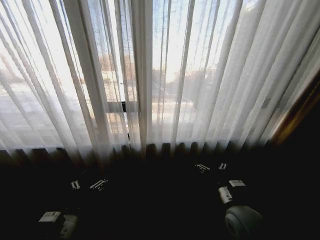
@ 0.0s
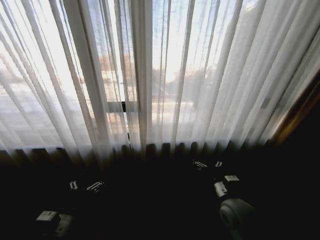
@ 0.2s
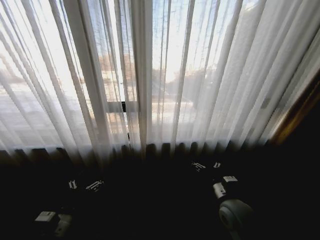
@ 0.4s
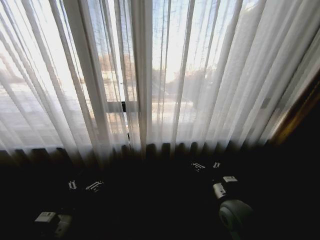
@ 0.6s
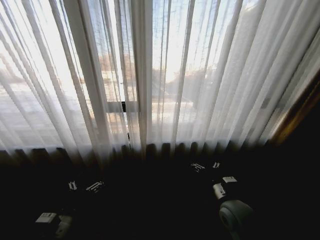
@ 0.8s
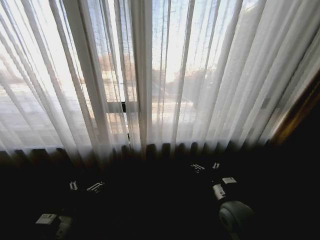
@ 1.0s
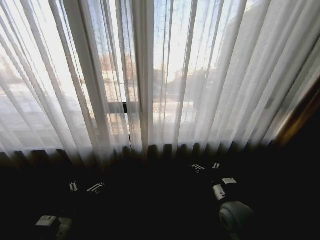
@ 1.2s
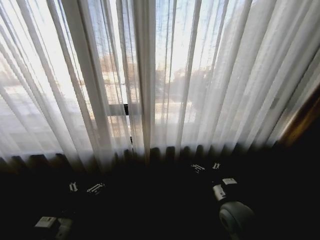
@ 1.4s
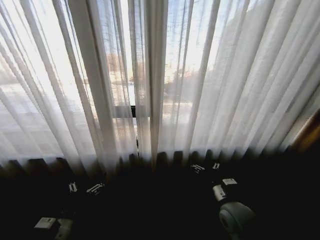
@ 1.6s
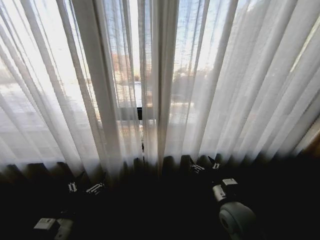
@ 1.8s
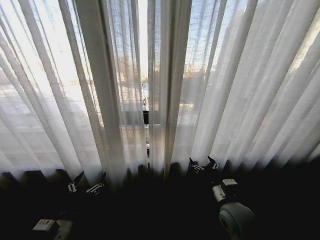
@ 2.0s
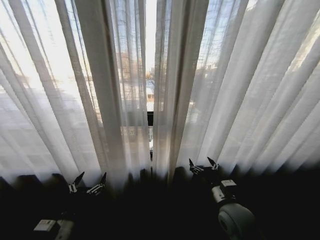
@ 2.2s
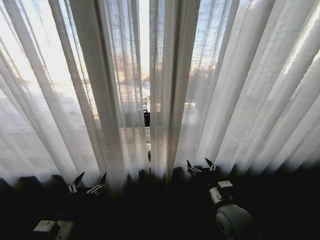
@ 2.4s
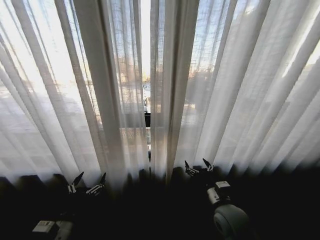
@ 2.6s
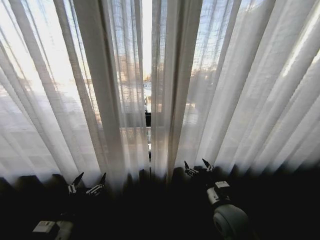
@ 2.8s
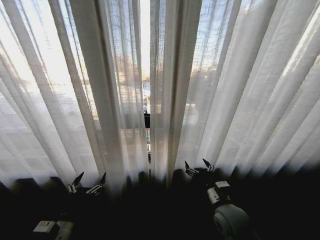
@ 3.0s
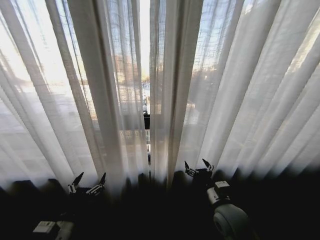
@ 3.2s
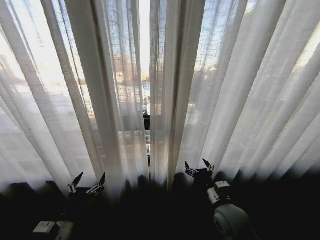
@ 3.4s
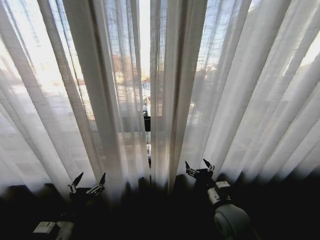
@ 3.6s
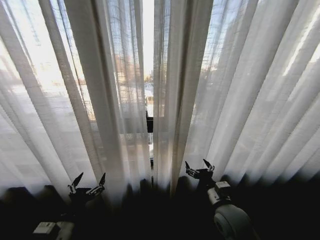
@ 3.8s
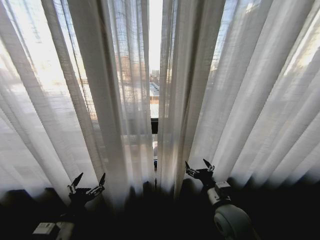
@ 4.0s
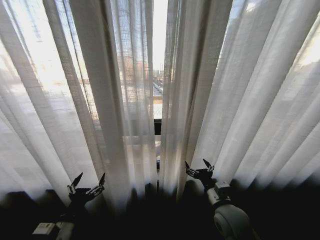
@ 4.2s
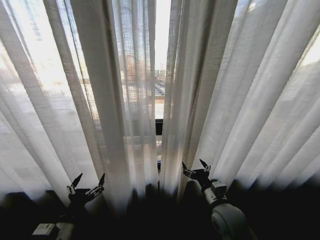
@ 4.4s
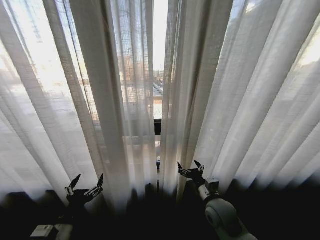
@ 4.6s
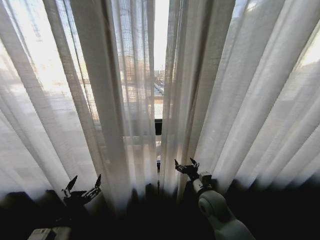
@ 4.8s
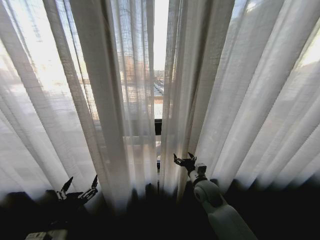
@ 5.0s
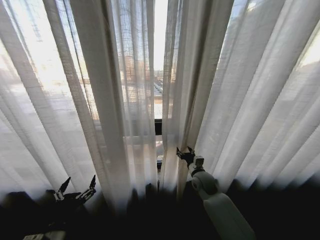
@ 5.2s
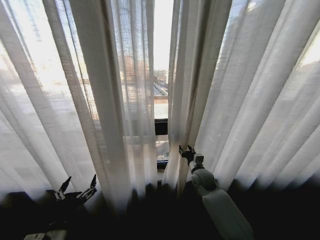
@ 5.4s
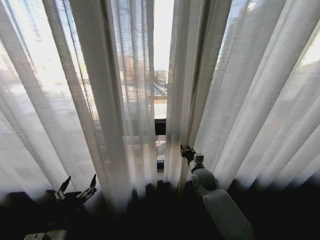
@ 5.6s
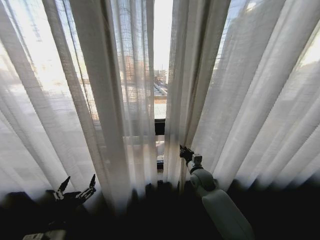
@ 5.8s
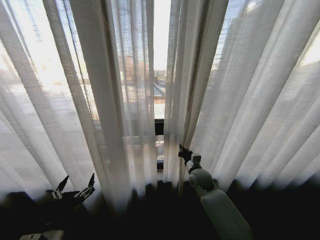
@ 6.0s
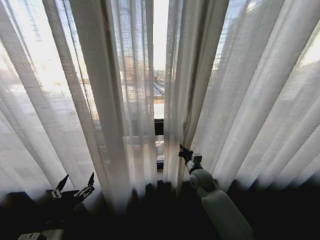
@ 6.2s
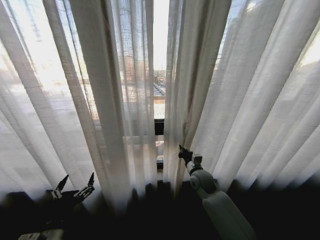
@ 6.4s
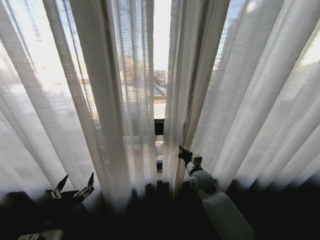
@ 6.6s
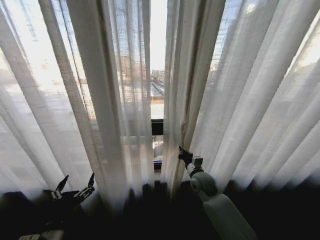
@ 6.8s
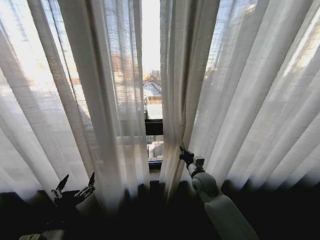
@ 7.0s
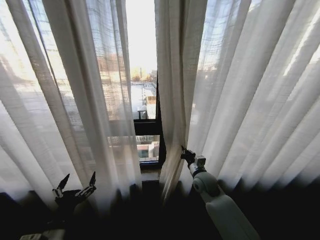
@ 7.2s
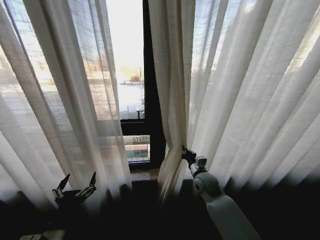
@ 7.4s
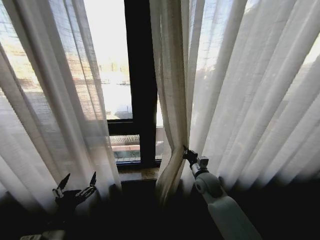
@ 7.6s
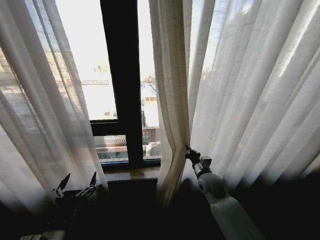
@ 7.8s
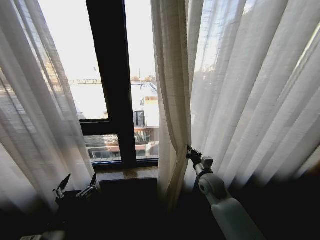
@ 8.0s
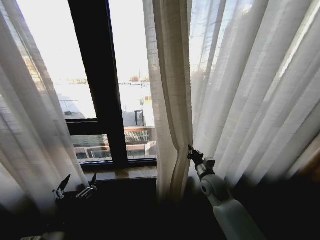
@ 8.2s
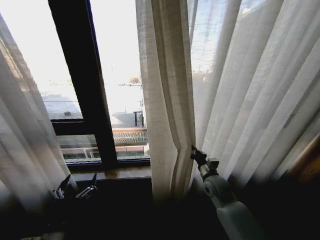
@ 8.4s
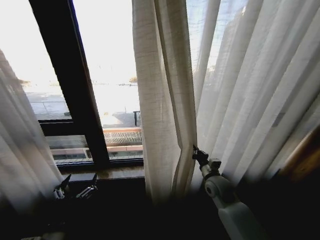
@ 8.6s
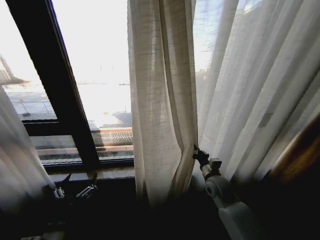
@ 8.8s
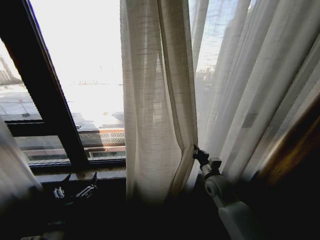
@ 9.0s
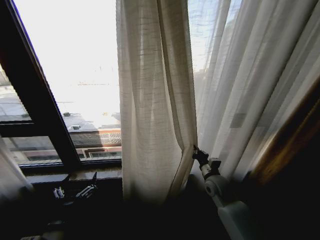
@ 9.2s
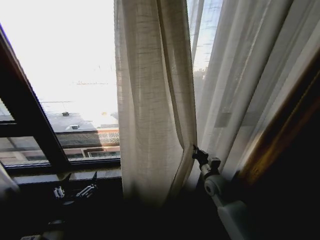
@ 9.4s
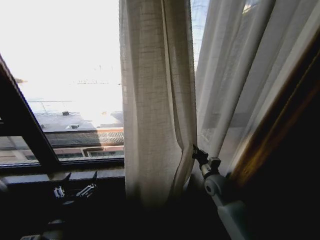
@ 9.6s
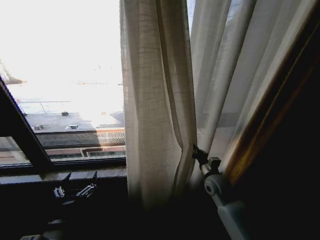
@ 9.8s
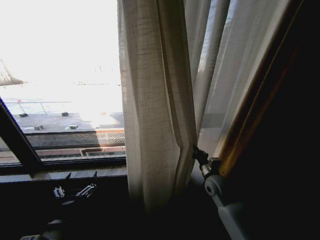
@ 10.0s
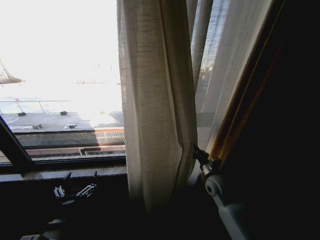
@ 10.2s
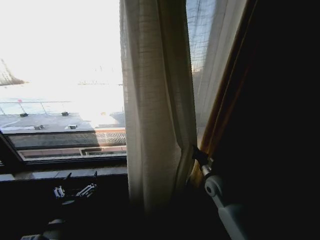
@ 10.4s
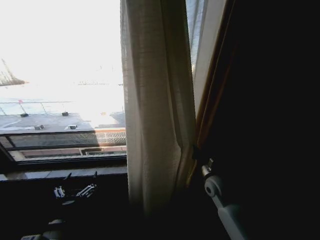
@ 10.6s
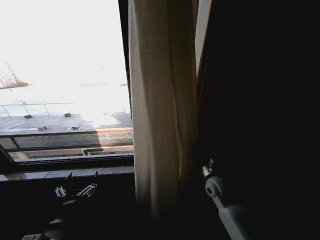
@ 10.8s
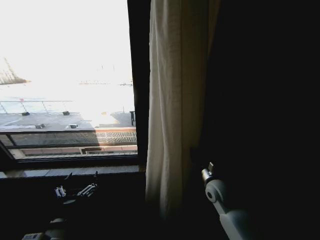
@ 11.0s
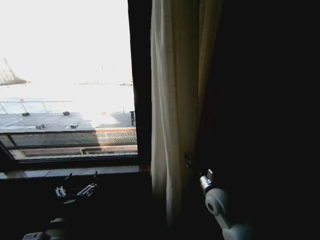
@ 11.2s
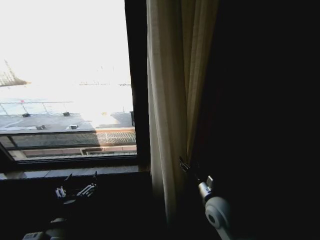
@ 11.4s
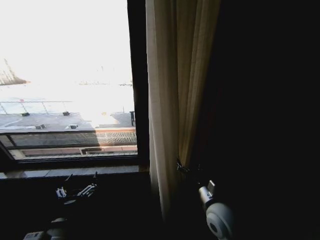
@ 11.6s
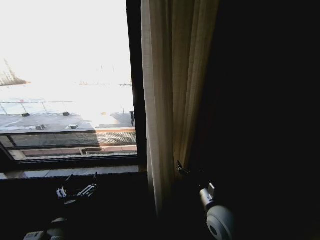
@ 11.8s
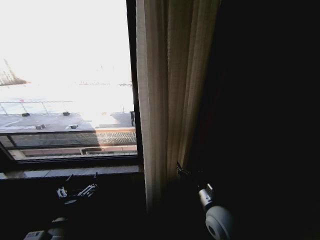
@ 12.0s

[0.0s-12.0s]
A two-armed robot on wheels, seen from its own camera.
Task of the whole recording: Open the curtains by pulling them apart, changing their state from closed to fully open.
4.4s to 6.0s: The right gripper goes approximately 15 cm forward, and closes.
10.4s to 12.0s: The right gripper shifts roughly 15 cm backward and to the left, and opens its fingers.

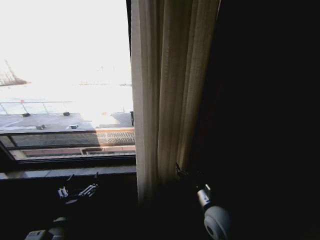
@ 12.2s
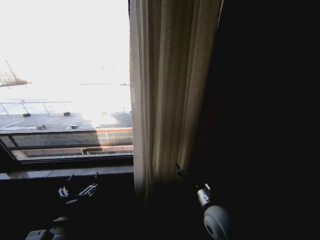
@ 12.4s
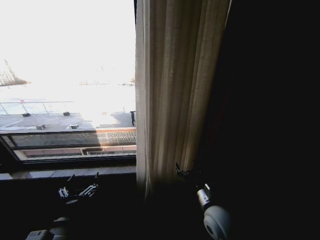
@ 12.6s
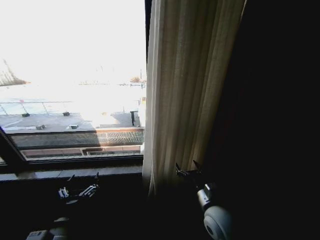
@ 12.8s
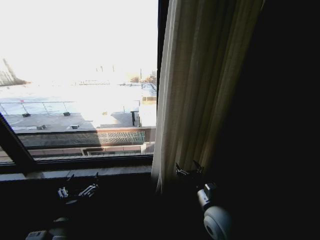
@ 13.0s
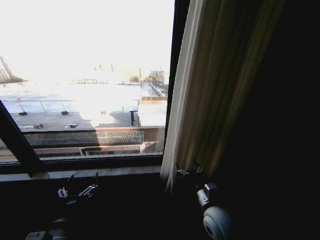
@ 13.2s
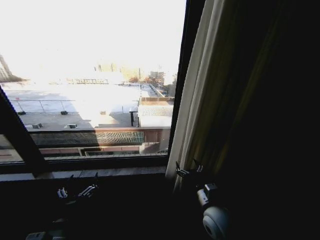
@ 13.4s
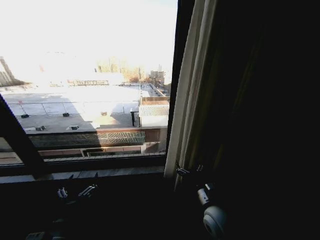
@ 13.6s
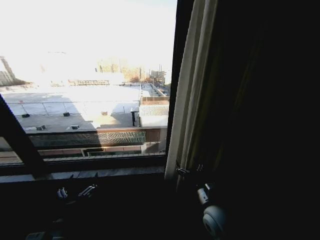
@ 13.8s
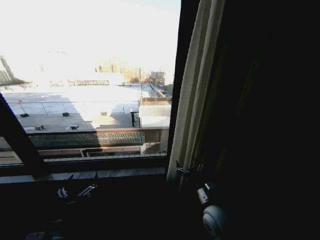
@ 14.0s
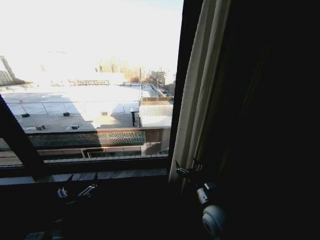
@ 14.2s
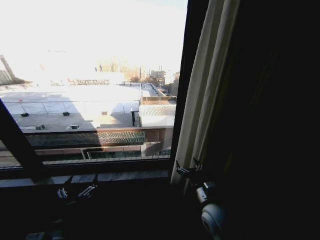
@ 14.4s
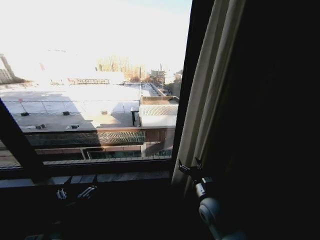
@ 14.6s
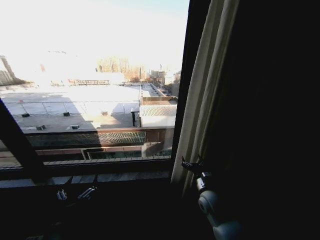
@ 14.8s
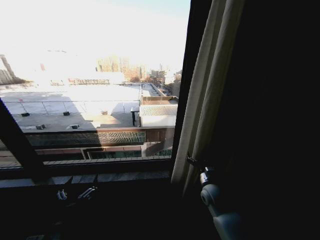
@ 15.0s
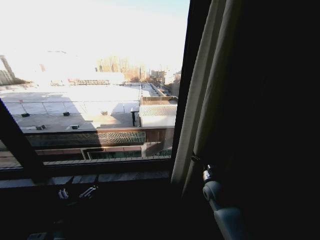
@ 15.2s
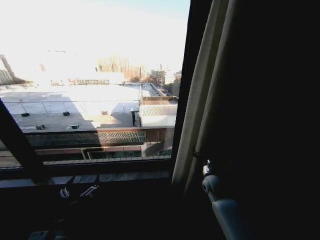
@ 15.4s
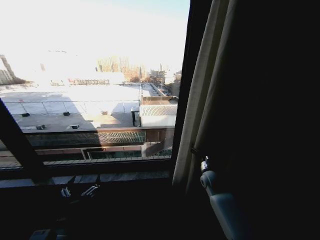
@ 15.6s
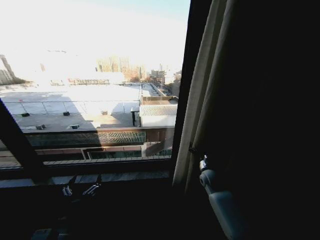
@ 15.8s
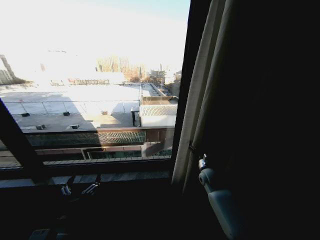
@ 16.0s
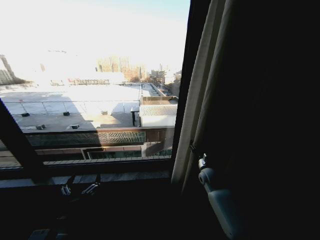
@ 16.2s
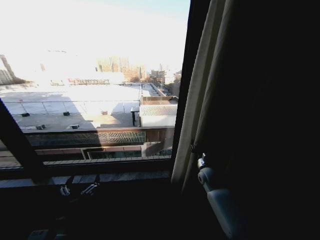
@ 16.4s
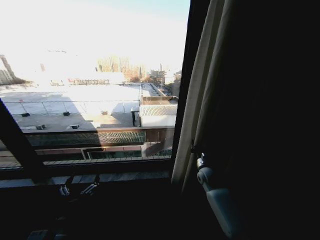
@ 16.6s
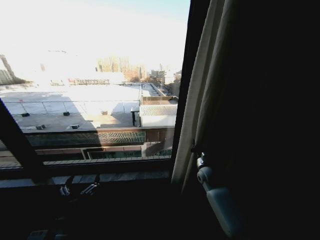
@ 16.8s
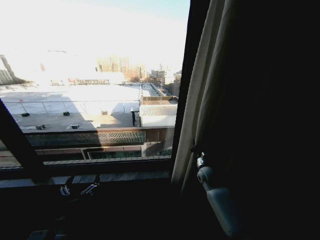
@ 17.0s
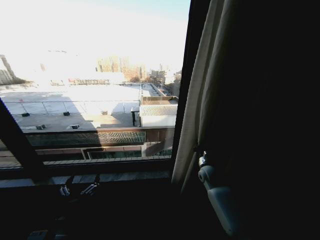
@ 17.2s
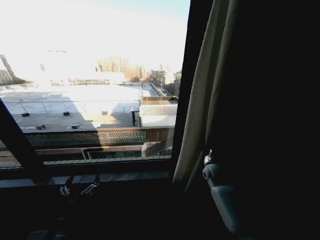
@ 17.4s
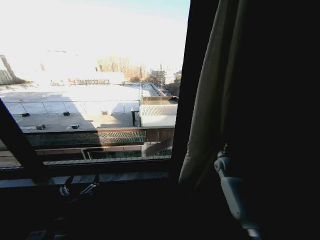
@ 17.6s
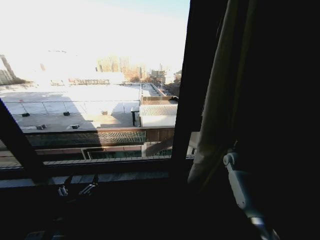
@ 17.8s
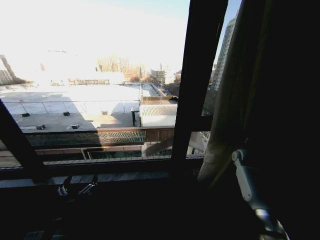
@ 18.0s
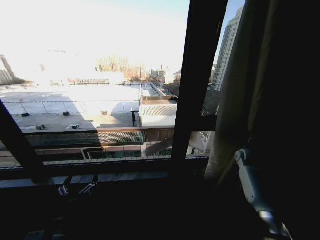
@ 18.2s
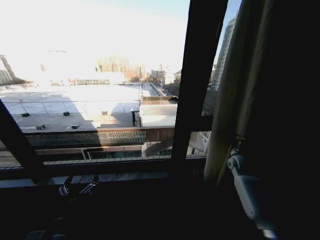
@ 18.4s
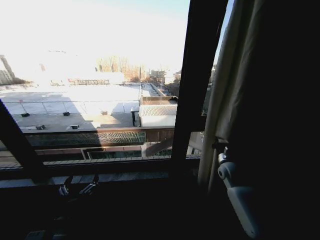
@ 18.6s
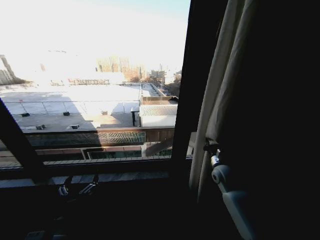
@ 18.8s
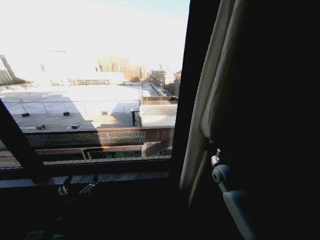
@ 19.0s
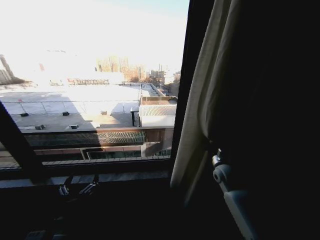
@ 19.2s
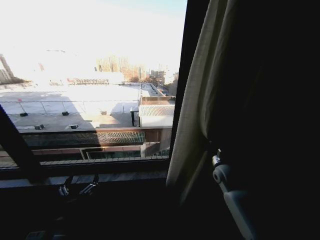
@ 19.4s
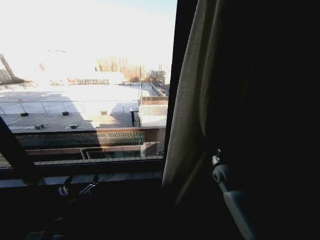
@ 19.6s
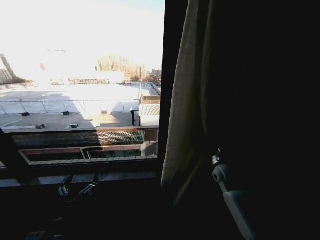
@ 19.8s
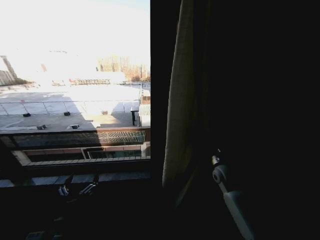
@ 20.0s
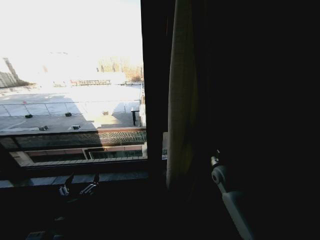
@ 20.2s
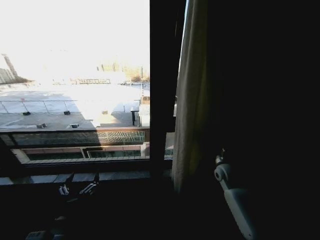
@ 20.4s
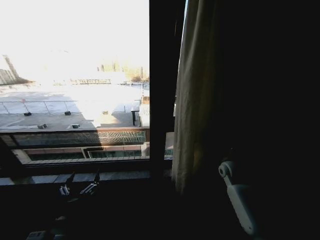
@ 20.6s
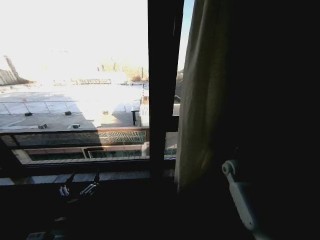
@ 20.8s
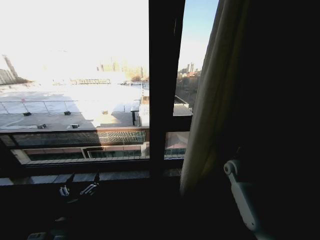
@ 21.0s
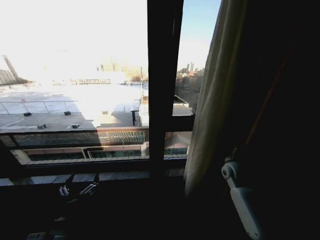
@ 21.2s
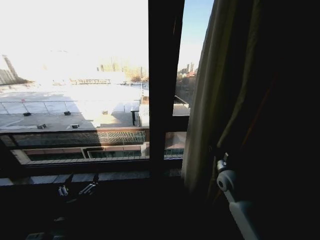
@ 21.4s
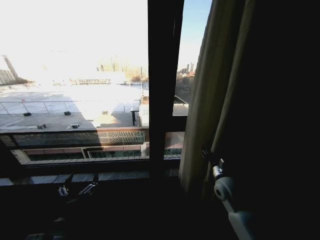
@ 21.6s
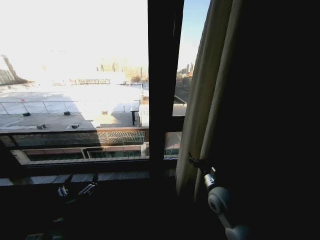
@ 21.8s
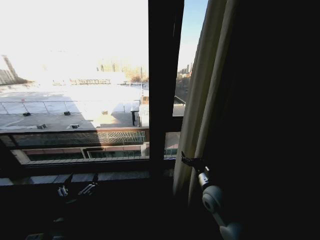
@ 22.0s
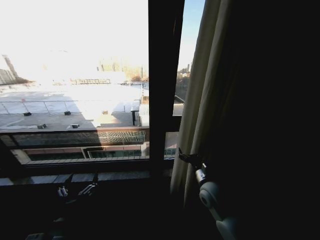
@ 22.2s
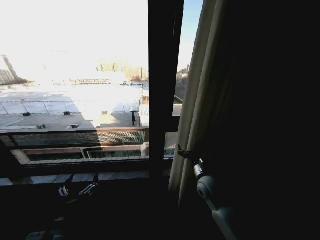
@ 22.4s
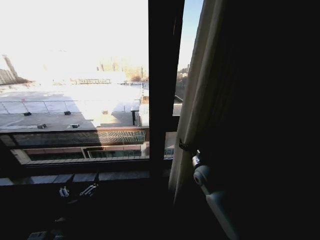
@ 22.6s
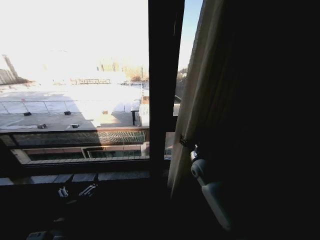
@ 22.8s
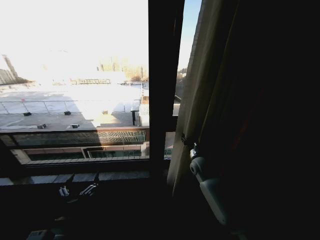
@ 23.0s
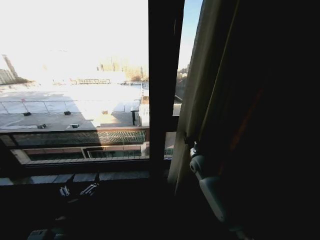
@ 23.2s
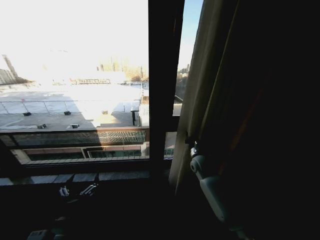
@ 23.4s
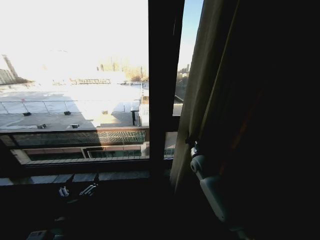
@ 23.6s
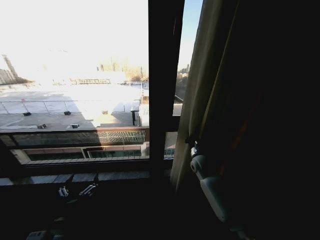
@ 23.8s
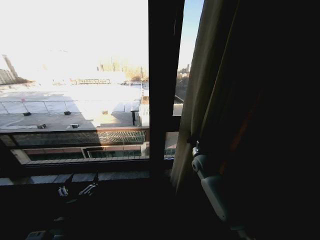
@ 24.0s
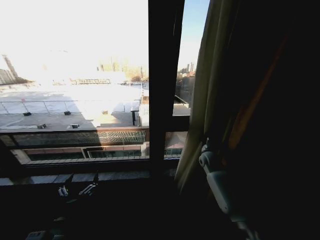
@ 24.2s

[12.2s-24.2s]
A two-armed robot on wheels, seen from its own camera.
Task of the whole recording: Open the curtains by pulling them apart, changing their state from closed to fully open.
13.8s to 15.2s: The right gripper travels forward and to the right by about 15 cm.
15.2s to 16.6s: The right gripper shifts approximately 10 cm forward, and closes up.
16.6s to 18.2s: The right gripper goes about 20 cm to the right.
18.2s to 19.8s: The right gripper is displaced to the left and backward by approximately 20 cm.
21.2s to 22.6s: The right gripper goes roughly 15 cm to the left, and opens up.
22.6s to 24.2s: The right gripper shifts some 10 cm forward and to the right, and closes.
